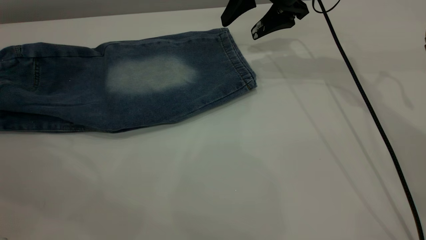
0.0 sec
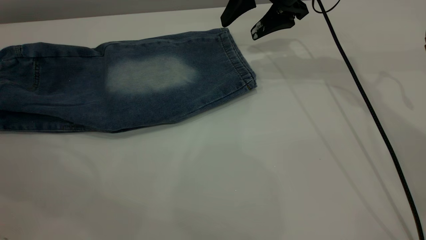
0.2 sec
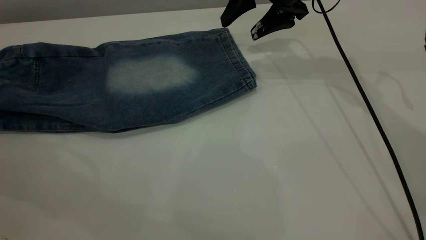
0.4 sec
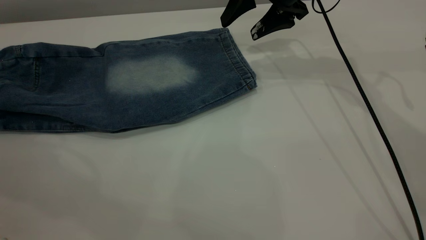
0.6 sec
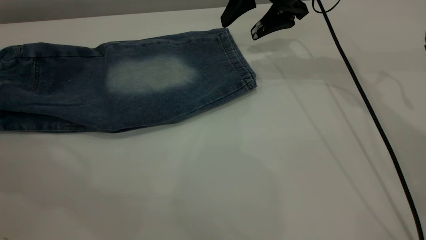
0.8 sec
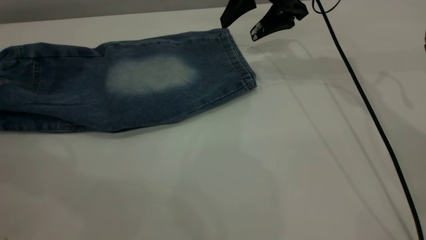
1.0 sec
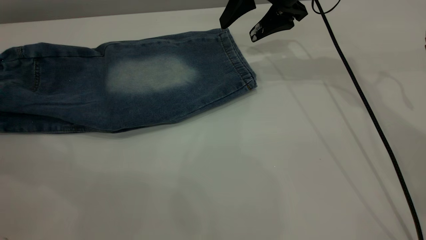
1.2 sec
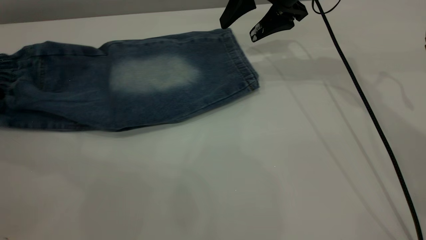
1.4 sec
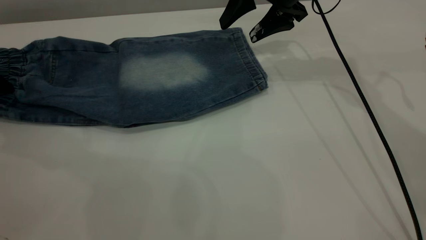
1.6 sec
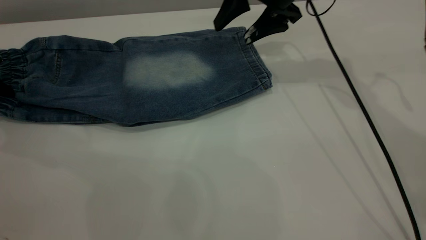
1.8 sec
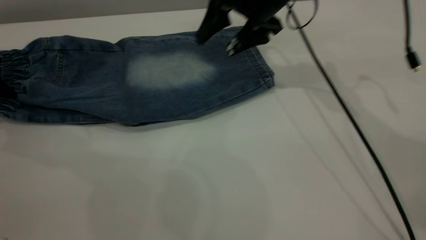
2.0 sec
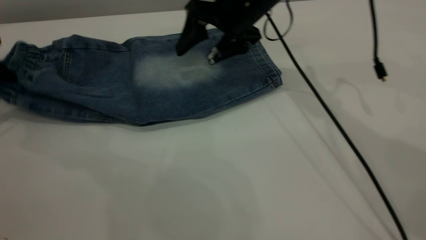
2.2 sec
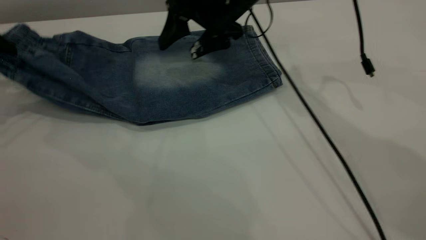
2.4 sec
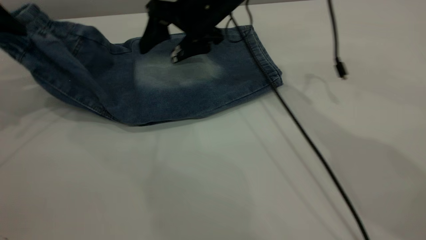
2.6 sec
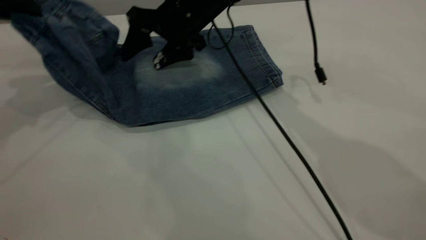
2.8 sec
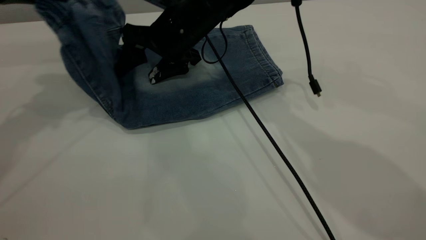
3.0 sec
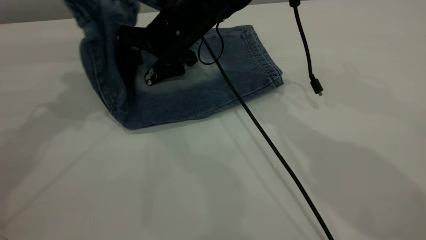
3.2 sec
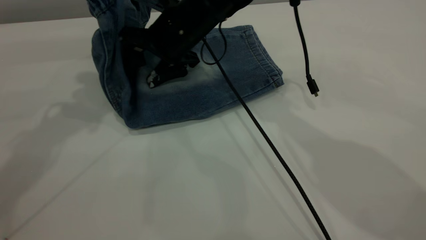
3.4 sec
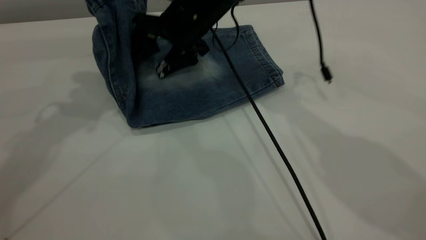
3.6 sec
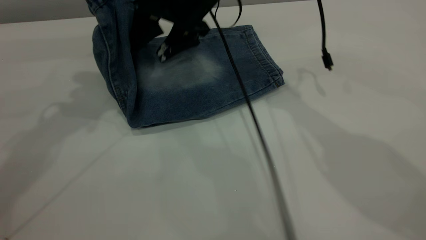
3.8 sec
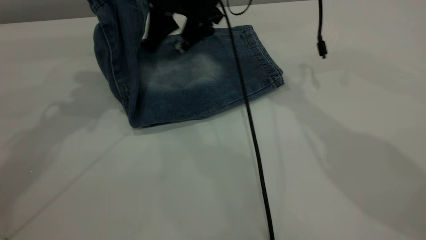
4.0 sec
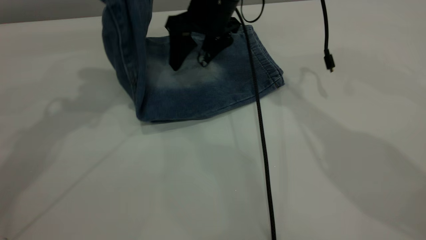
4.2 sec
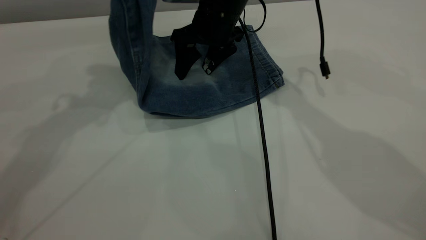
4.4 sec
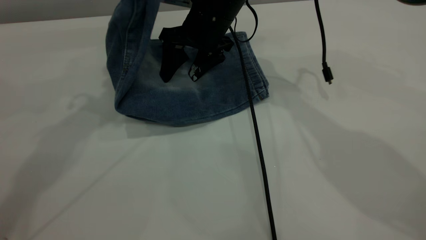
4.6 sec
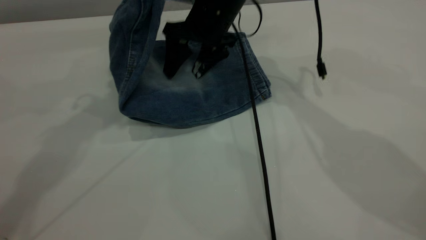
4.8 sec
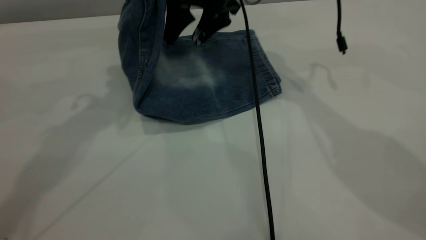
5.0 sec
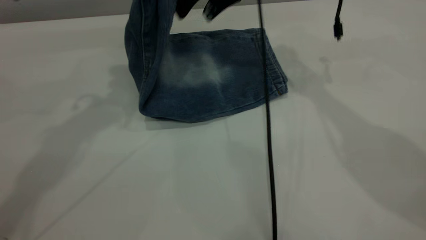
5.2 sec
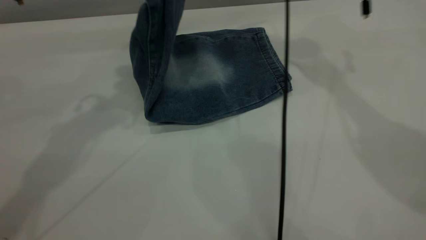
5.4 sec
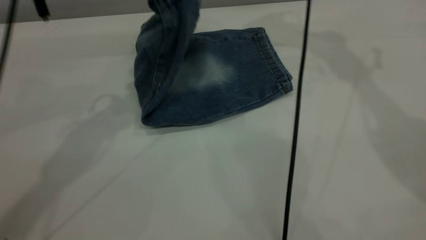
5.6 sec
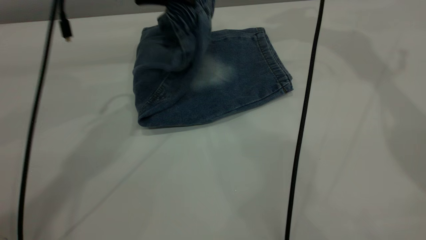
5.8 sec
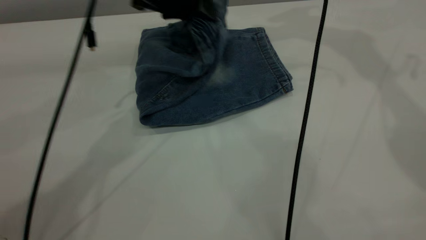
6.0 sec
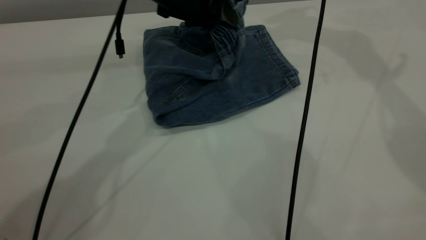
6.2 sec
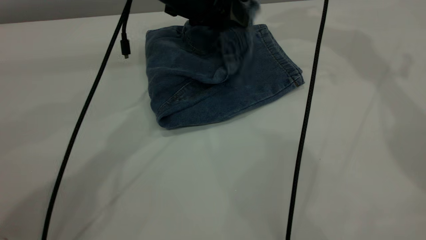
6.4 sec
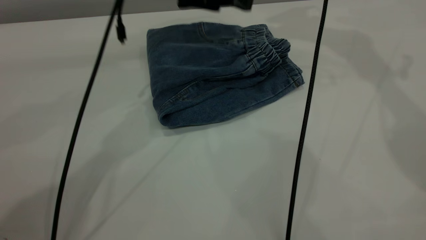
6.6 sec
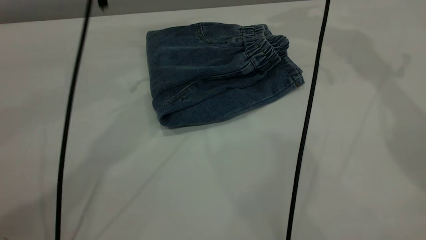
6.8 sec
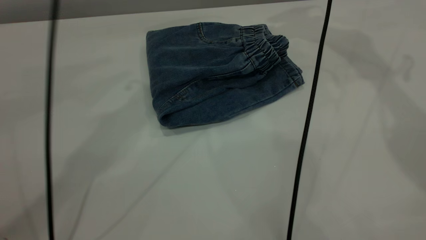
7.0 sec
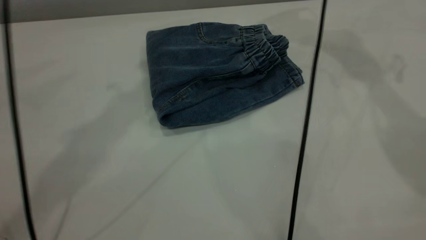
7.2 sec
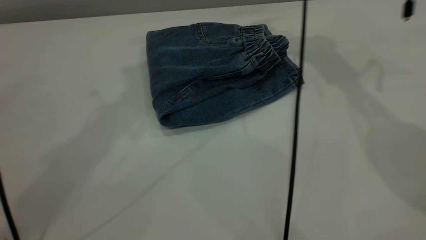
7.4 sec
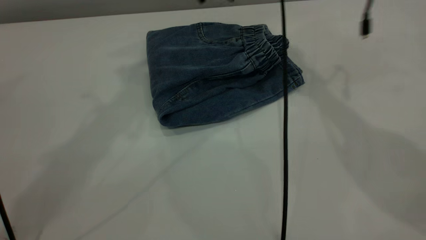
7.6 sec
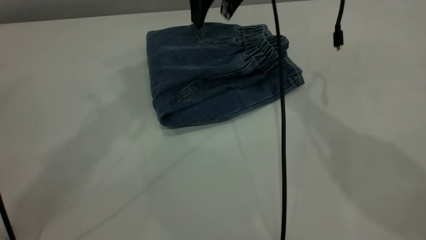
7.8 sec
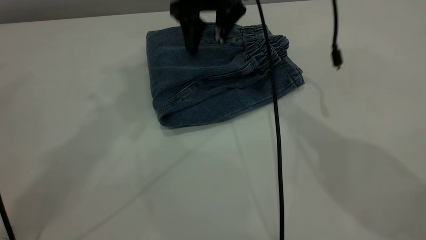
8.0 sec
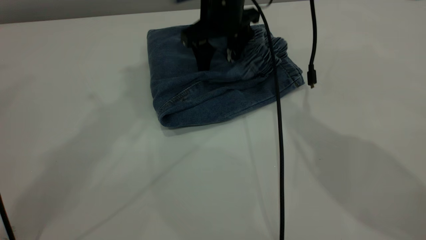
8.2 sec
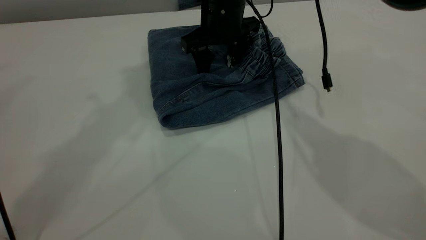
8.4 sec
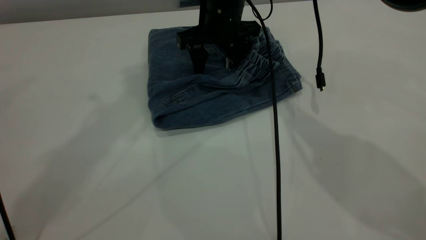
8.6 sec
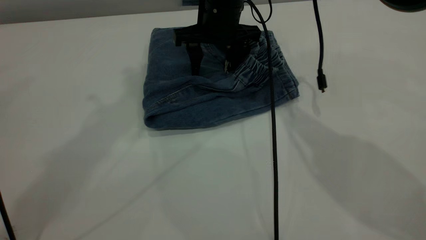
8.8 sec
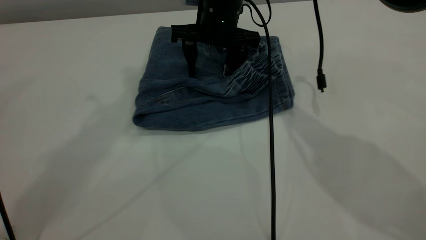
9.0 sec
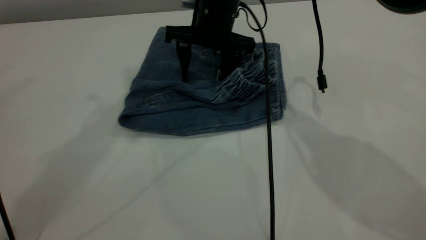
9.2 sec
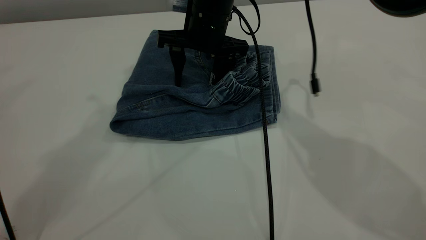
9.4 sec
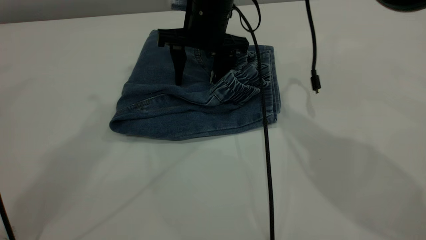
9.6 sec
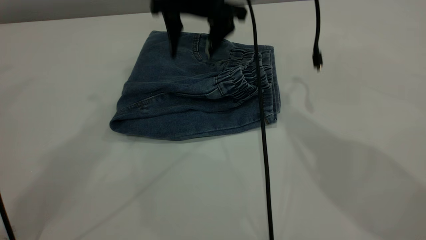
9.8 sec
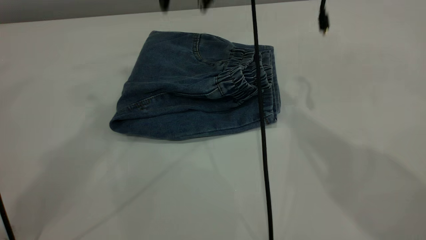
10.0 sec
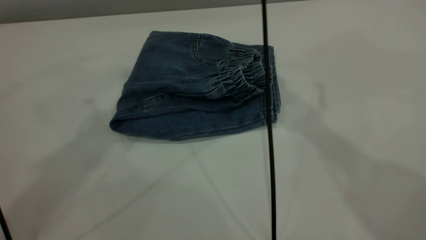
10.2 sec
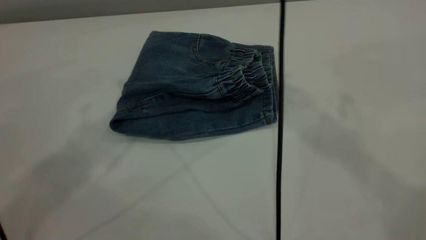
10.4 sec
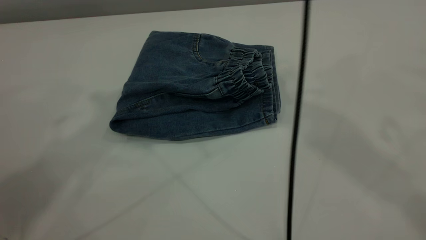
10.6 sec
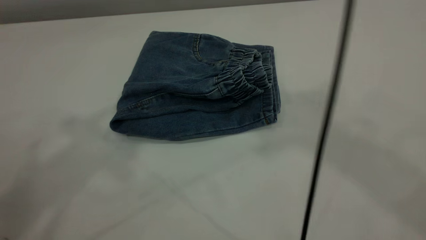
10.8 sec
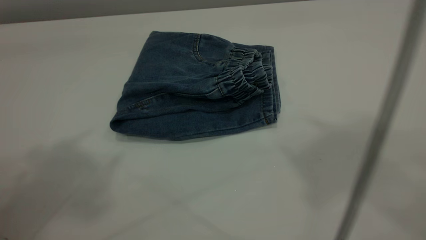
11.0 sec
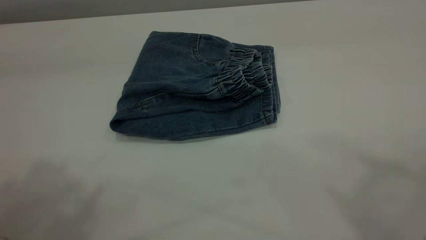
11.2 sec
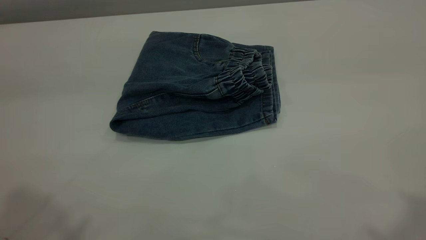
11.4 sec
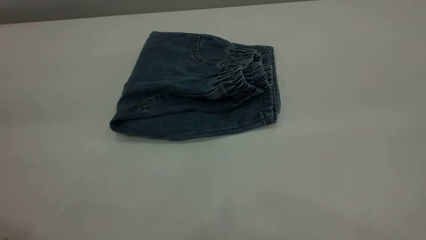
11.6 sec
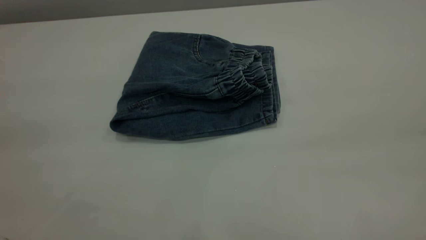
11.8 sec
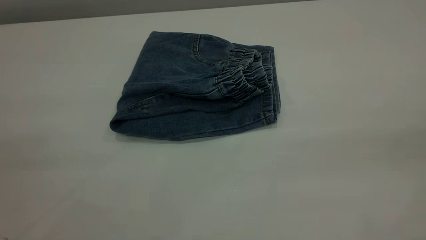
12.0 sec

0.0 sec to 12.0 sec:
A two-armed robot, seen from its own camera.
Step, 0.0 sec to 6.8 sec: Fold the pants from left to right.
0.0 sec to 1.6 sec: The left gripper travels downward and forward by some 10 cm.
1.6 sec to 3.0 sec: The right gripper goes approximately 15 cm to the left, while the left gripper travels to the right and upward by about 20 cm, and closes up.
3.0 sec to 4.4 sec: The right gripper is displaced to the right by some 5 cm; the left gripper travels to the right and upward by about 10 cm.
4.4 sec to 6.0 sec: The right gripper is displaced upward and to the right by about 25 cm. Meanwhile the left gripper goes approximately 15 cm to the right and downward.
6.0 sec to 7.6 sec: The right gripper heads to the left and downward, covering approximately 15 cm. Meanwhile the left gripper shifts about 25 cm upward, and opens.
7.6 sec to 9.0 sec: The right gripper goes about 10 cm downward.
9.0 sec to 10.4 sec: The right gripper goes approximately 35 cm upward. Meanwhile the left gripper changes place by roughly 5 cm.
10.4 sec to 12.0 sec: The left gripper goes some 30 cm backward, to the left and downward, while the right gripper shifts some 40 cm backward and to the right.
